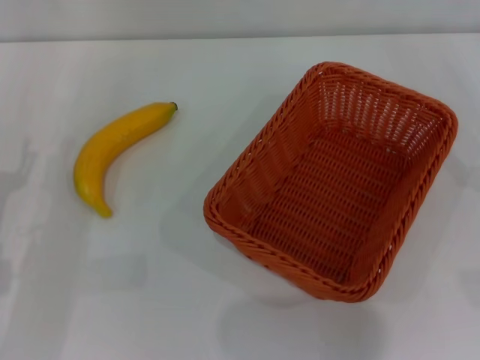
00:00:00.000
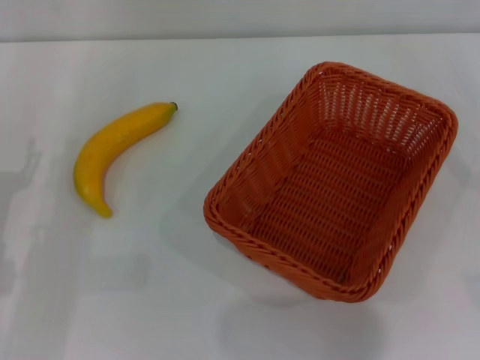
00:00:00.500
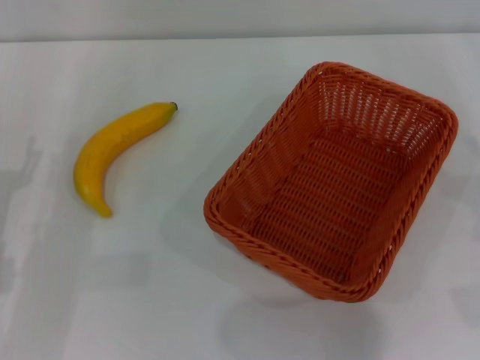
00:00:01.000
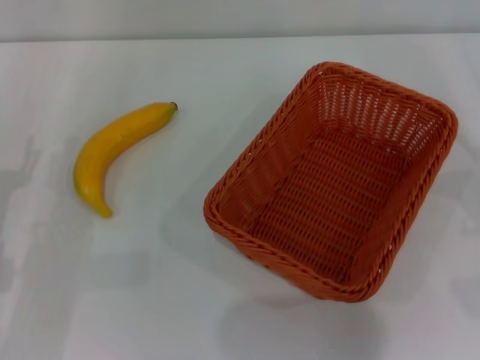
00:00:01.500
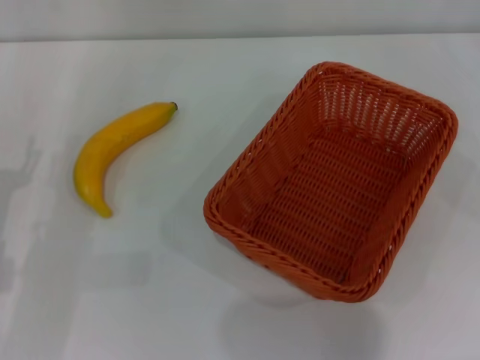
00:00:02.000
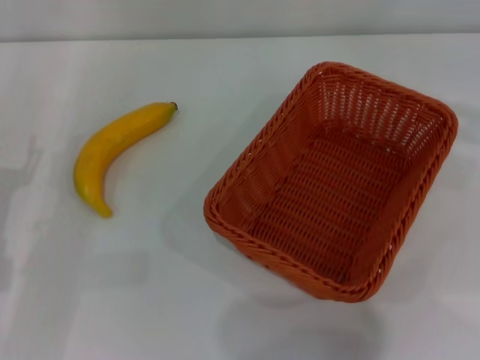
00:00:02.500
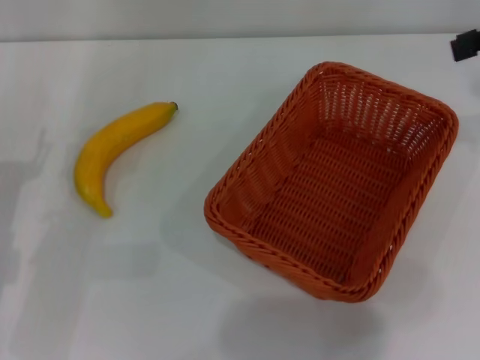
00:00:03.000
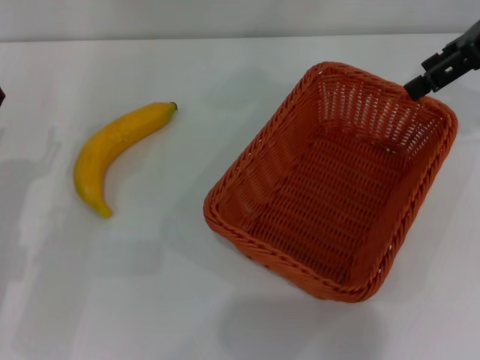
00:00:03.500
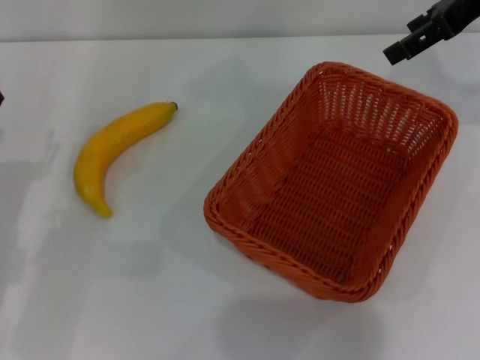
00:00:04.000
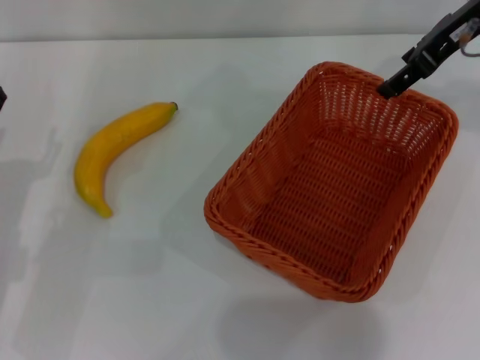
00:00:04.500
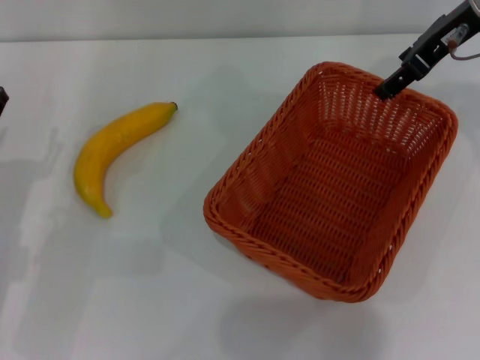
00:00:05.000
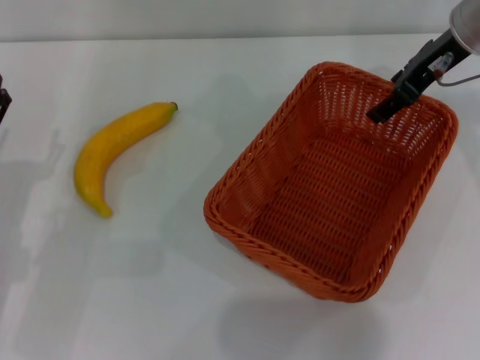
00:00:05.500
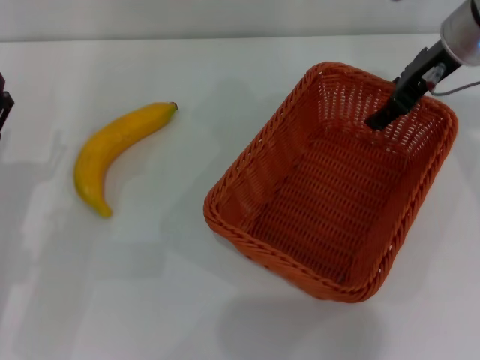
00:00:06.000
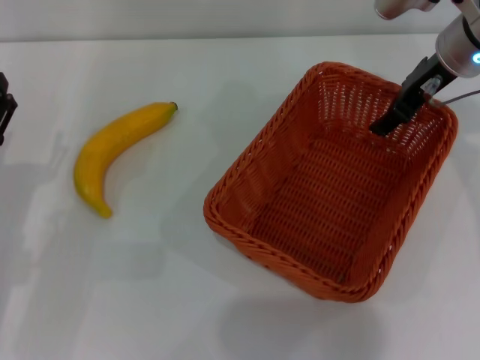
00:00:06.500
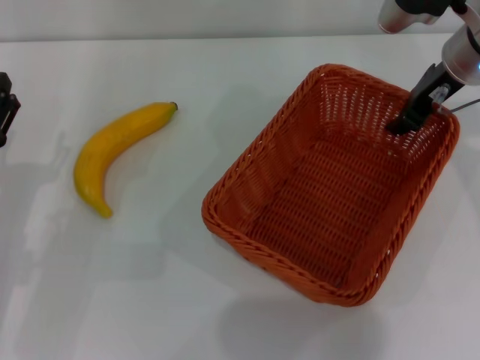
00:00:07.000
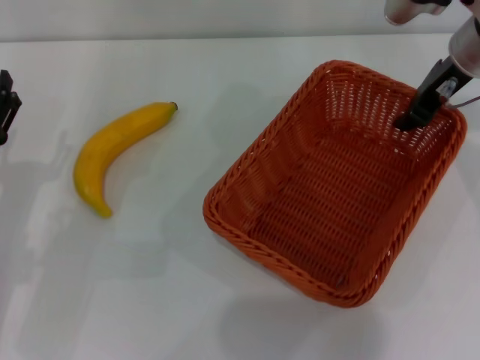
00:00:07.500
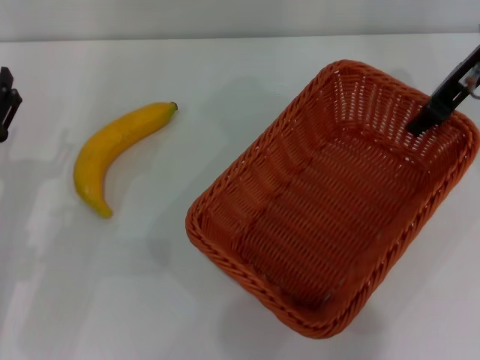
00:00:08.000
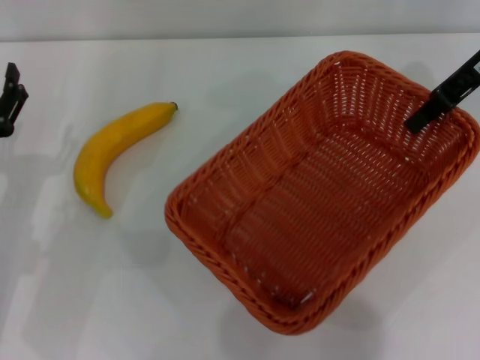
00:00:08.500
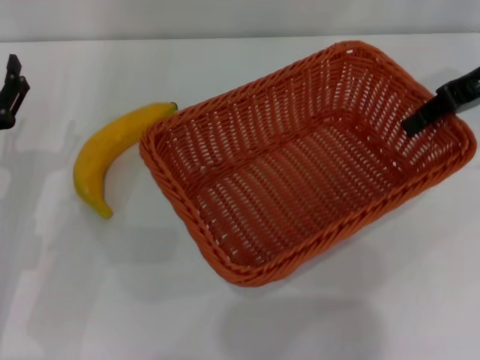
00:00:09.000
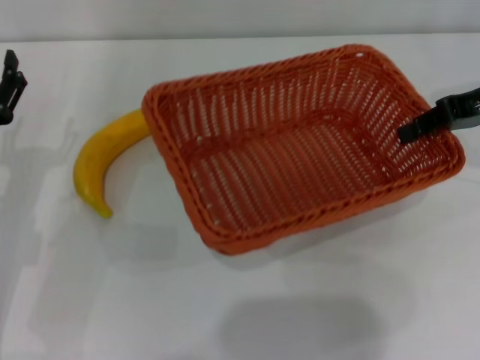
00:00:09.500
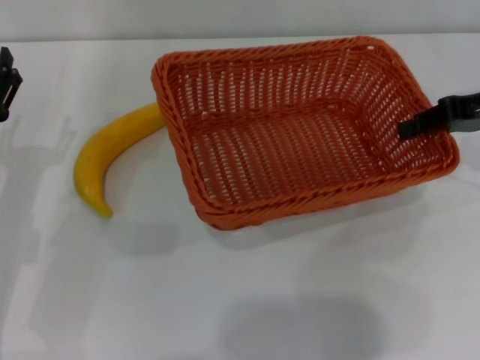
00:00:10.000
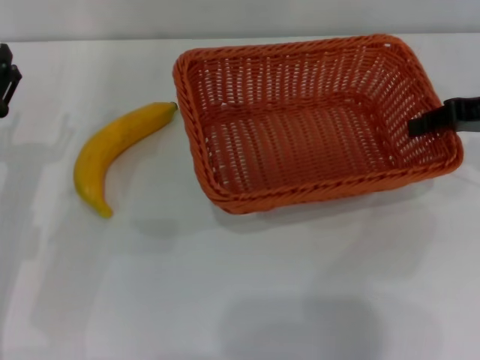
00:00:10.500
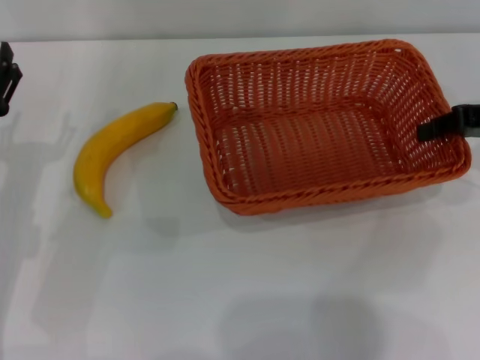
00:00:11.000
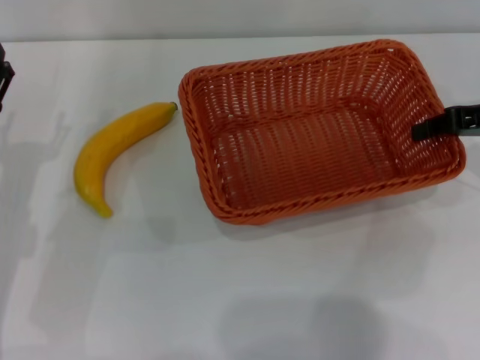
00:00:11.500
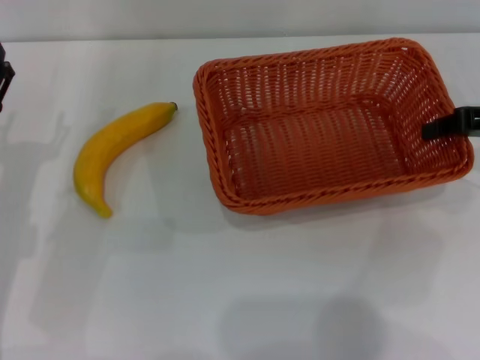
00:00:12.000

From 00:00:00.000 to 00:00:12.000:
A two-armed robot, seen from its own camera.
Step, from 00:00:00.000 to 00:00:07.500: Pick up the light basket with the right gripper.
From 00:00:02.000 to 00:00:04.000: The right gripper heads to the left, upward and forward, covering some 25 cm.
From 00:00:04.000 to 00:00:06.000: The right gripper travels downward and to the left by approximately 10 cm.
From 00:00:06.000 to 00:00:08.000: The right gripper closes its fingers.
From 00:00:08.000 to 00:00:10.000: The right gripper moves to the right and downward, some 10 cm.
From 00:00:10.000 to 00:00:12.000: The grippers move only a little.

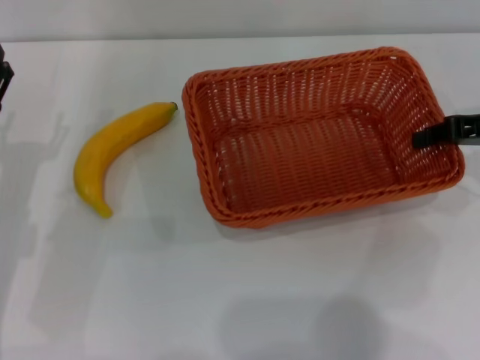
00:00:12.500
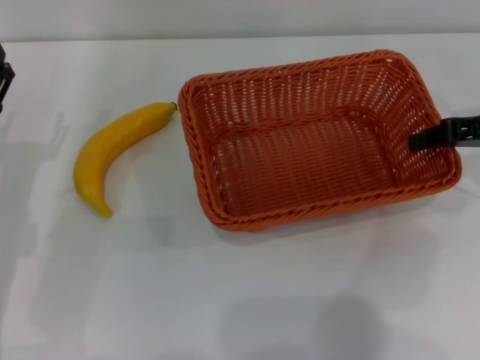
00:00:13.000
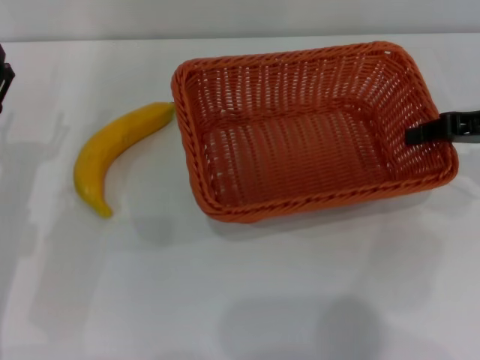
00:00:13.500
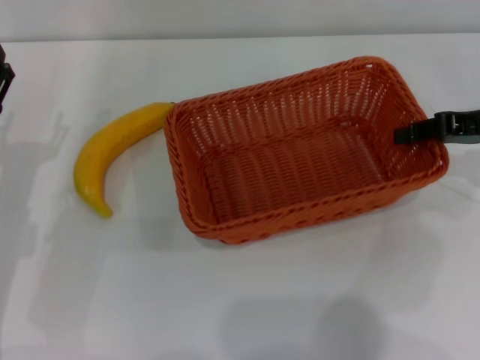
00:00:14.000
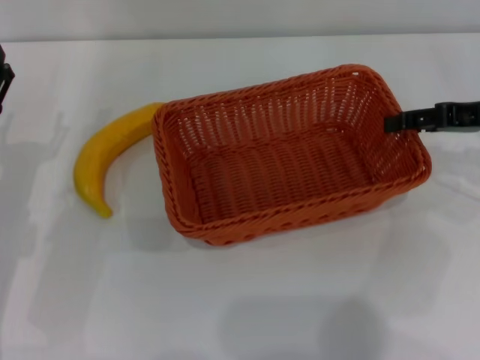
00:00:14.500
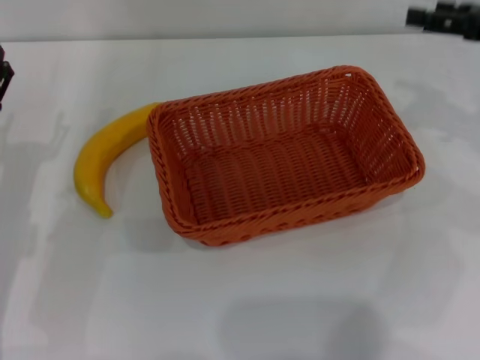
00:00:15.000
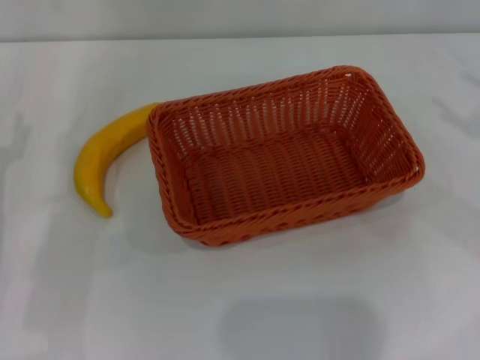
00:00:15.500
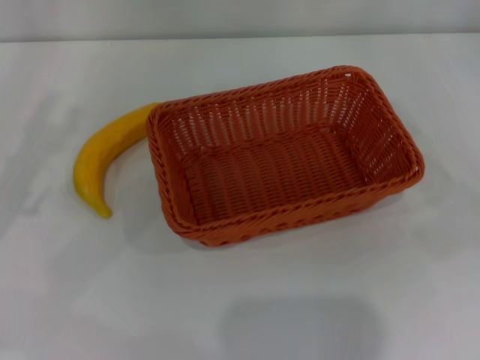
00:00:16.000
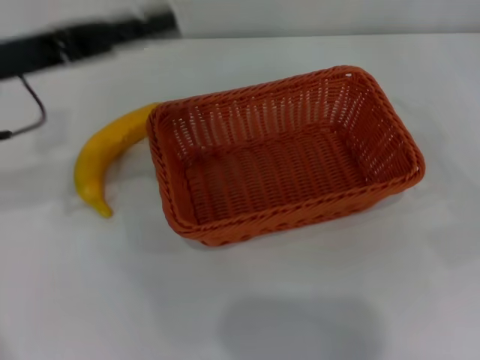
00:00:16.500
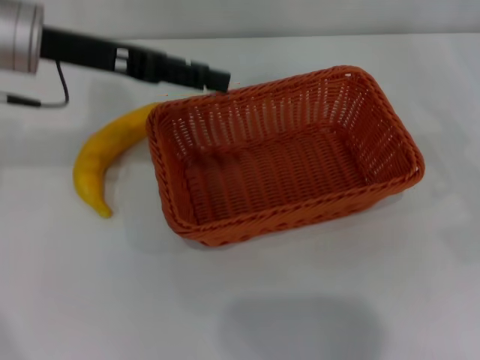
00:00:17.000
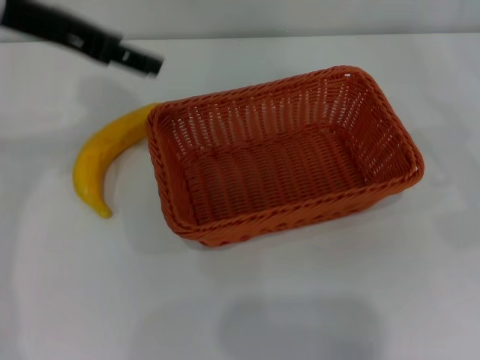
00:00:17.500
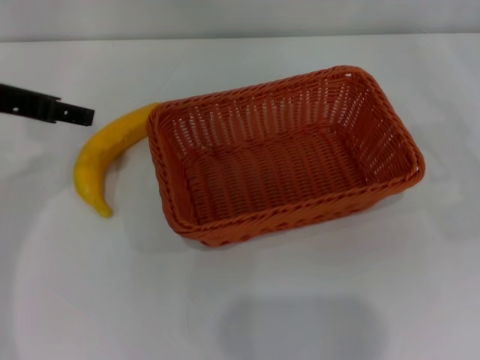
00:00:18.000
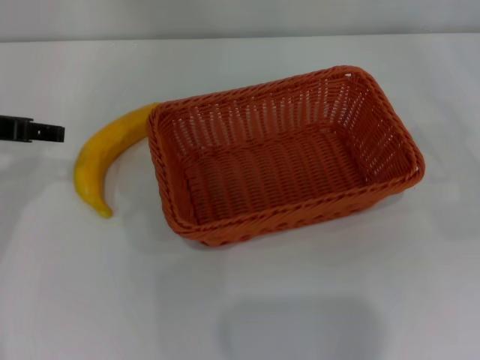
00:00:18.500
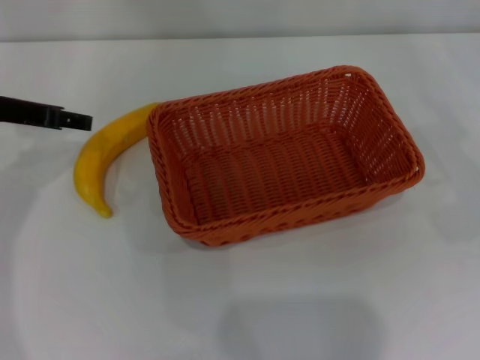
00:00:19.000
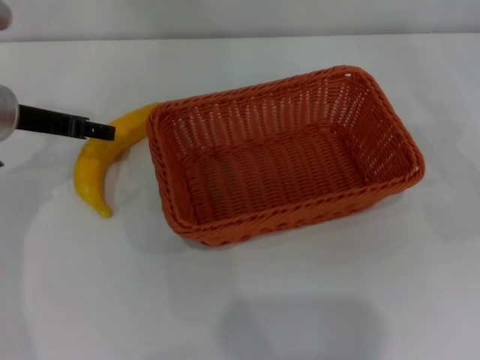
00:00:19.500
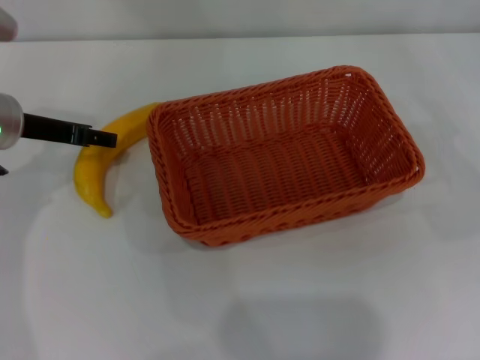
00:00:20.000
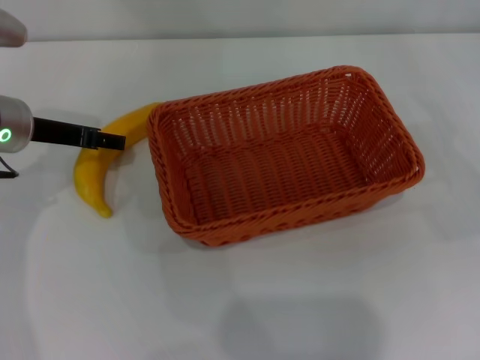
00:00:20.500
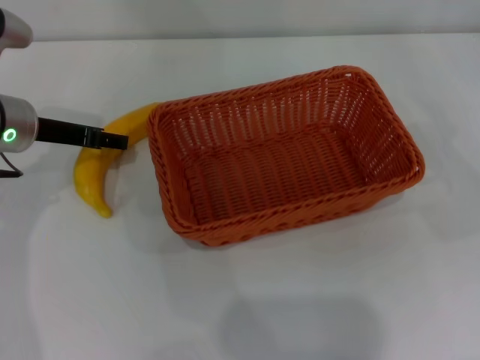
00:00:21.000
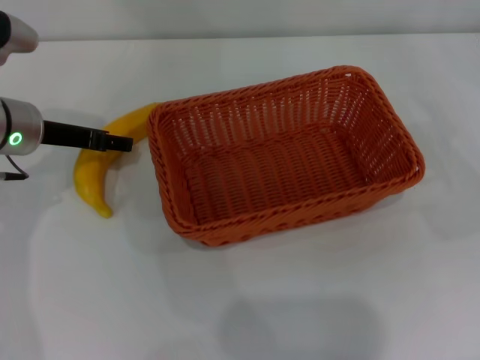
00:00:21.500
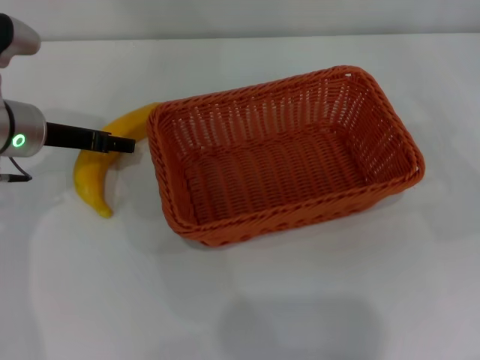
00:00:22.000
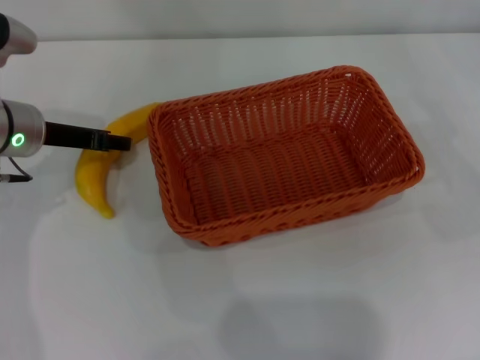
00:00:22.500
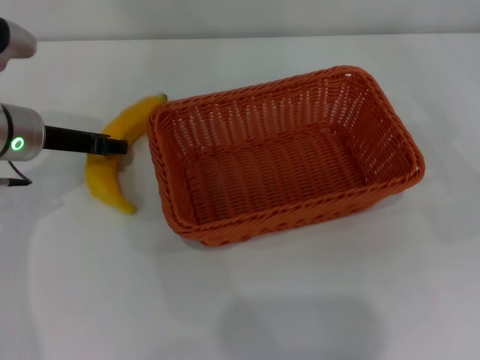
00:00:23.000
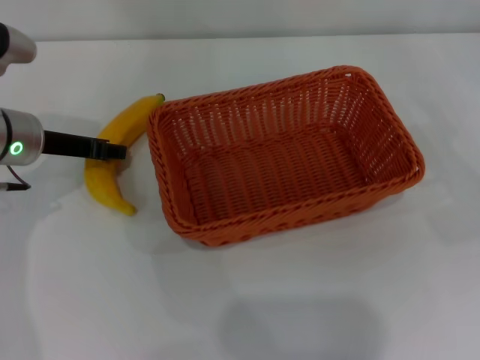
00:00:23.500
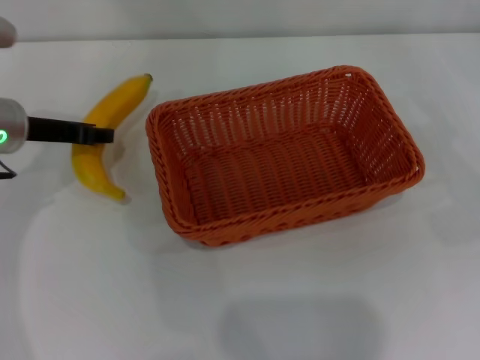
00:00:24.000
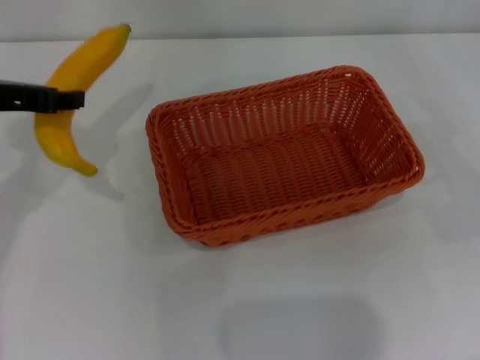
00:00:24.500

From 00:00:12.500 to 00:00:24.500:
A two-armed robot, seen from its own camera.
Step, from 00:00:12.500 to 00:00:14.500: Place the light basket in the center of view with the right gripper.
Step, from 00:00:15.000 to 00:00:24.000: Pick up the banana with the left gripper.
From 00:00:12.500 to 00:00:14.500: The grippers make only small movements.
From 00:00:14.500 to 00:00:16.500: The right gripper shifts some 15 cm to the right and backward, and opens up. Meanwhile the left gripper heads upward and forward, covering roughly 15 cm.
From 00:00:16.500 to 00:00:18.500: The left gripper moves some 10 cm upward and comes back.
From 00:00:18.500 to 00:00:20.500: The left gripper is displaced downward by approximately 5 cm.
From 00:00:20.500 to 00:00:22.500: The grippers move only a little.
From 00:00:22.500 to 00:00:24.500: The left gripper heads upward, covering about 10 cm, and closes.

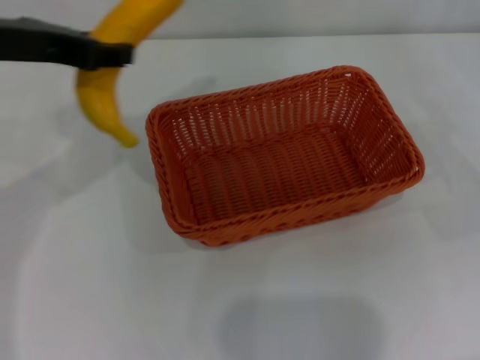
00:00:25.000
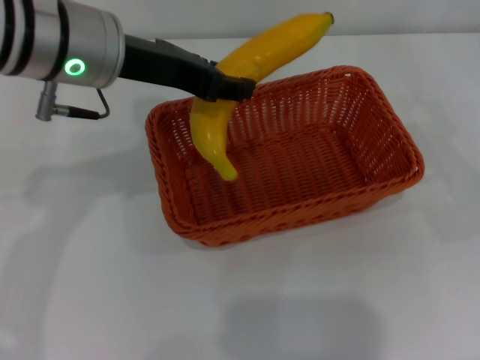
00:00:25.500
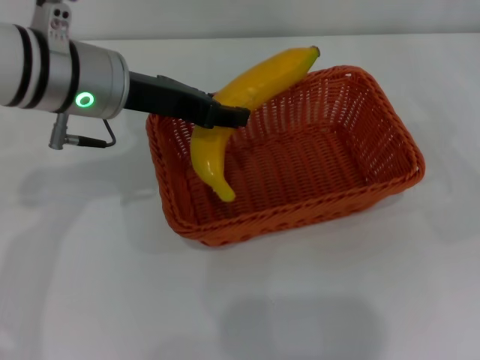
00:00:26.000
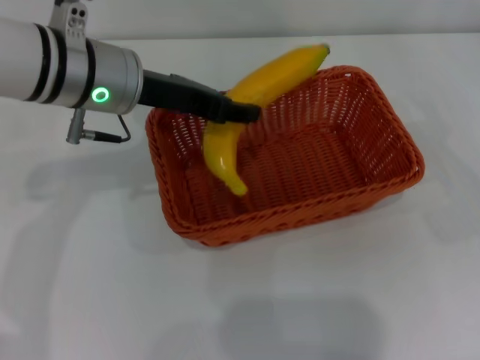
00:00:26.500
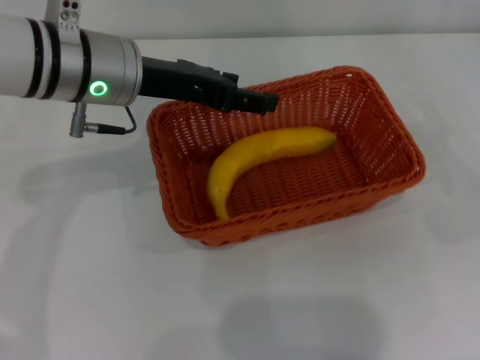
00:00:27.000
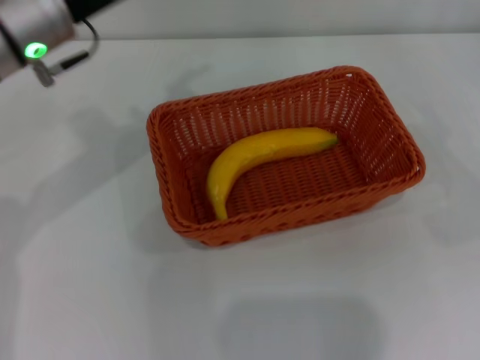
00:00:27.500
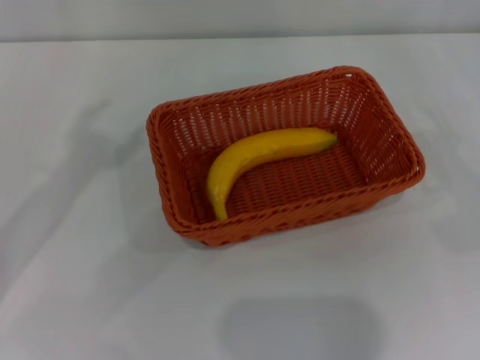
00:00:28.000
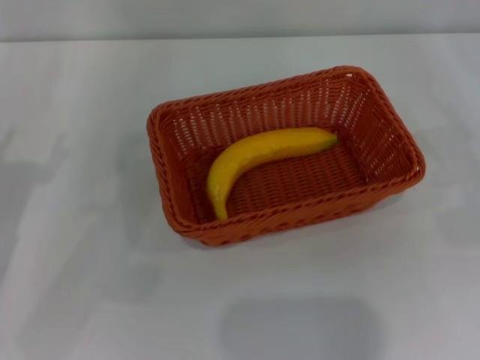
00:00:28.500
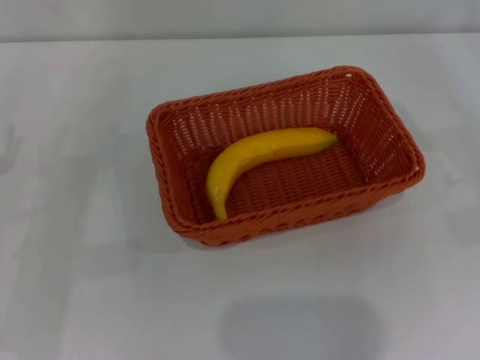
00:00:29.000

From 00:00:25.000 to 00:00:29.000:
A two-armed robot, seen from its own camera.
Step, from 00:00:25.000 to 00:00:26.500: Place the banana into the light basket with the left gripper.
From 00:00:25.000 to 00:00:27.000: The left gripper shifts approximately 10 cm to the right and downward, and opens.
From 00:00:27.000 to 00:00:29.000: The left gripper travels to the left, downward and backward by approximately 25 cm, and opens its fingers.
